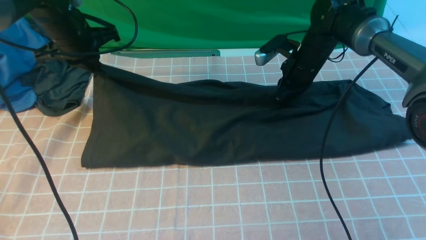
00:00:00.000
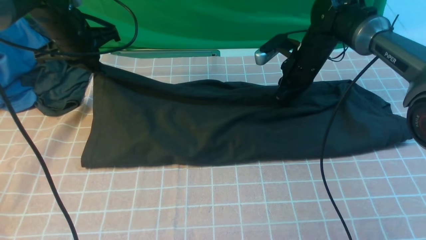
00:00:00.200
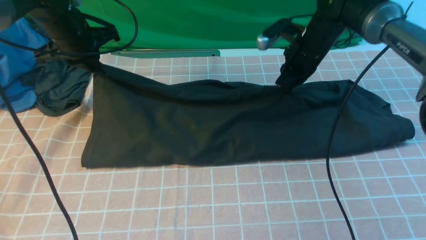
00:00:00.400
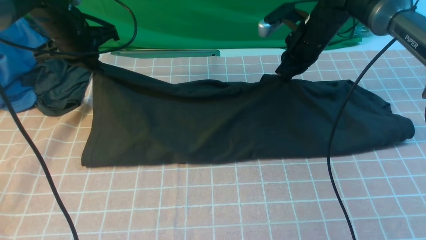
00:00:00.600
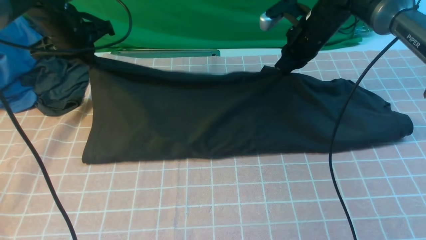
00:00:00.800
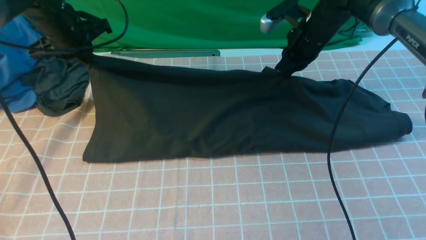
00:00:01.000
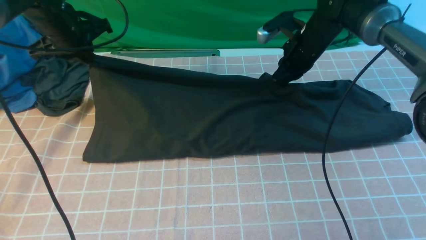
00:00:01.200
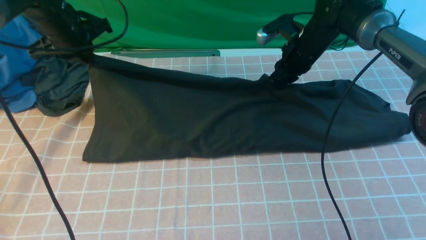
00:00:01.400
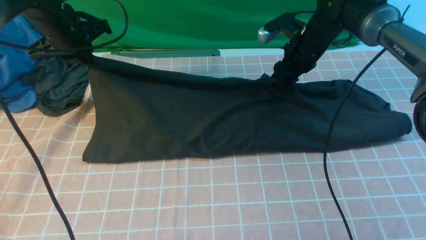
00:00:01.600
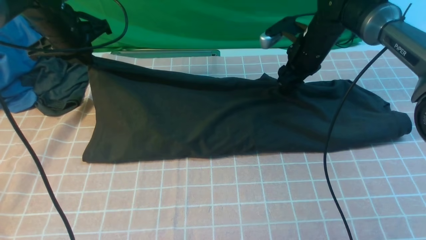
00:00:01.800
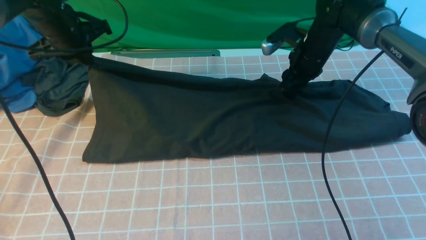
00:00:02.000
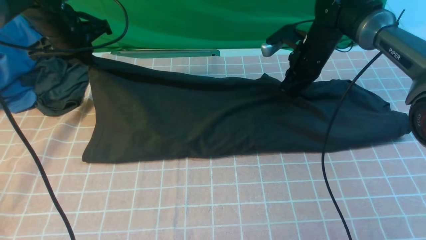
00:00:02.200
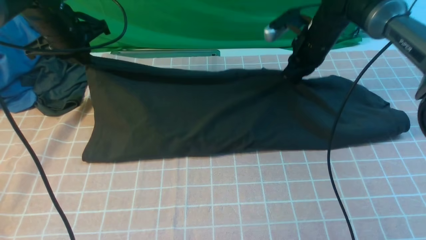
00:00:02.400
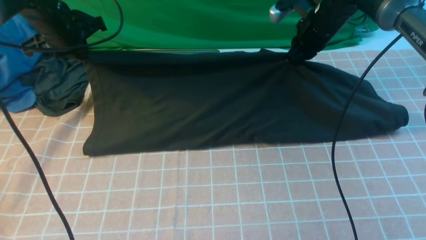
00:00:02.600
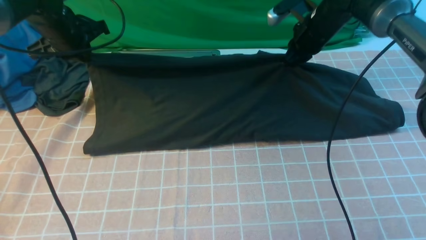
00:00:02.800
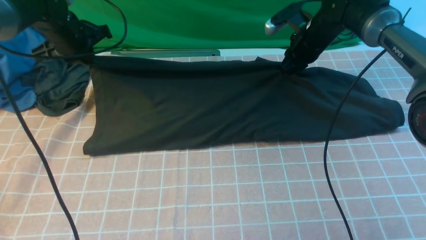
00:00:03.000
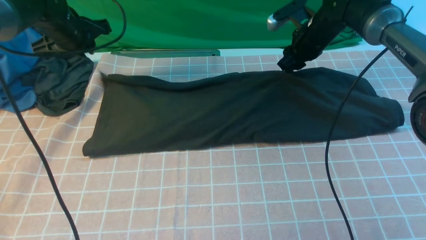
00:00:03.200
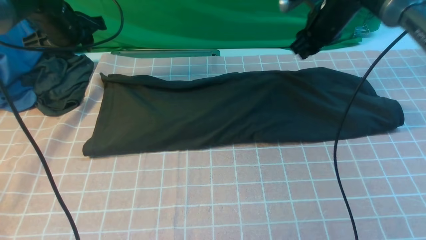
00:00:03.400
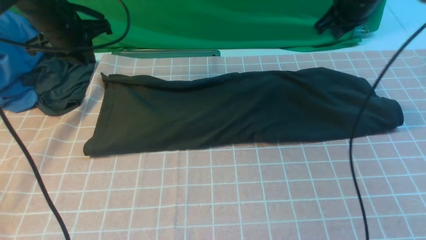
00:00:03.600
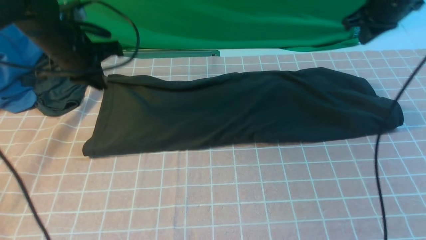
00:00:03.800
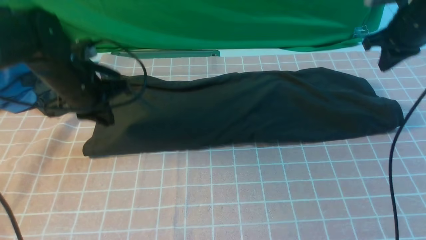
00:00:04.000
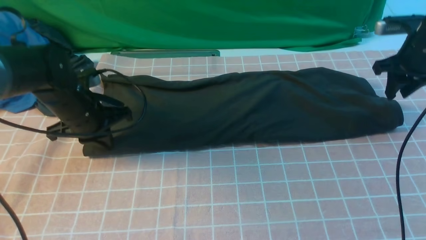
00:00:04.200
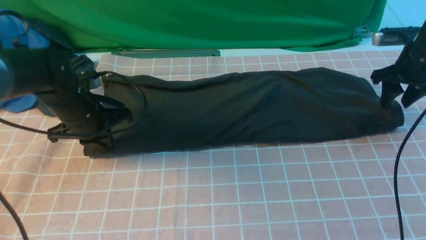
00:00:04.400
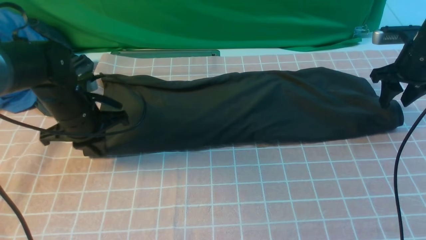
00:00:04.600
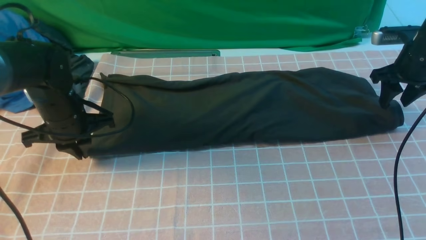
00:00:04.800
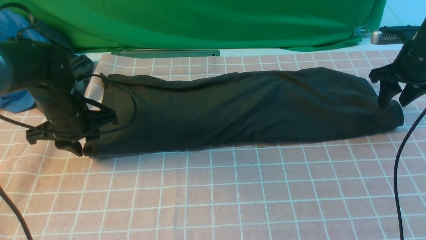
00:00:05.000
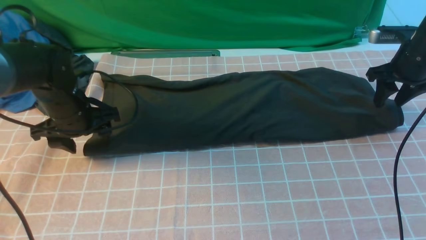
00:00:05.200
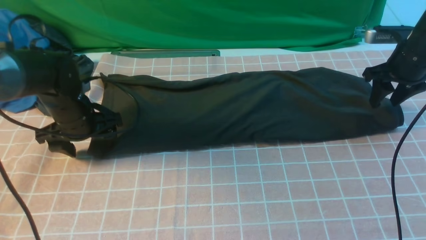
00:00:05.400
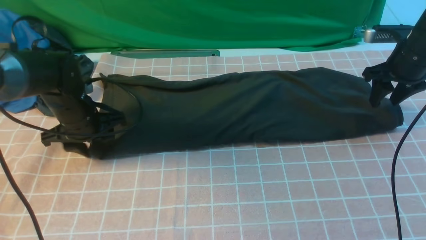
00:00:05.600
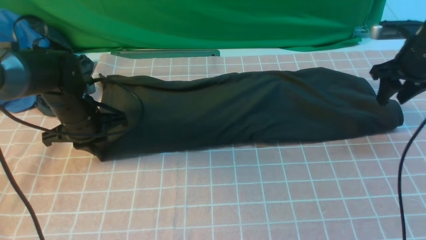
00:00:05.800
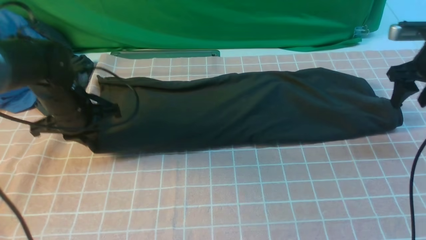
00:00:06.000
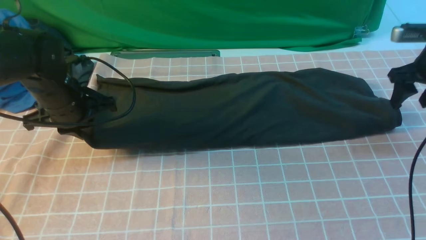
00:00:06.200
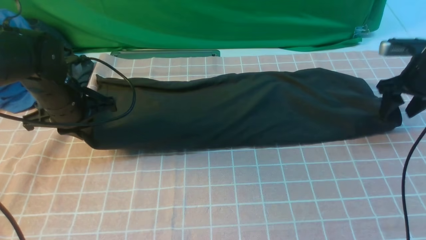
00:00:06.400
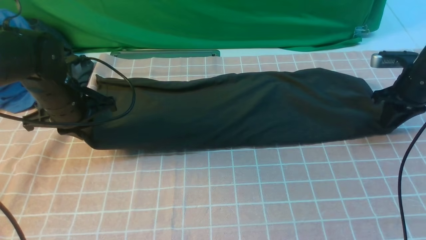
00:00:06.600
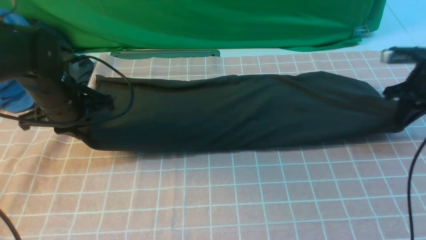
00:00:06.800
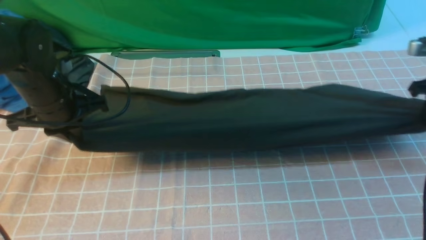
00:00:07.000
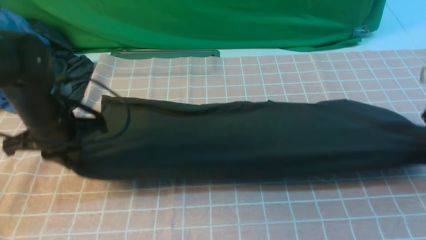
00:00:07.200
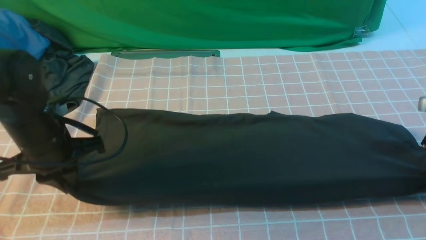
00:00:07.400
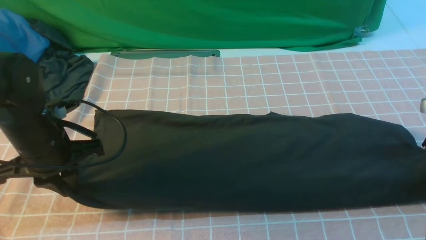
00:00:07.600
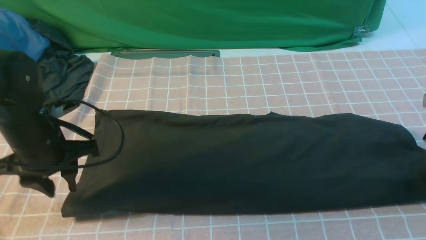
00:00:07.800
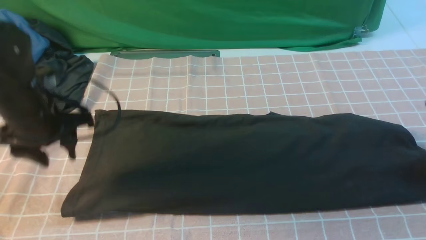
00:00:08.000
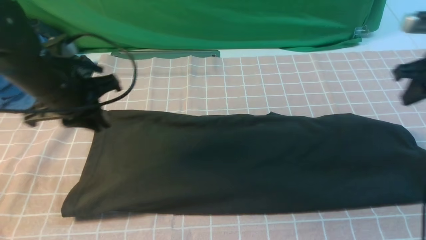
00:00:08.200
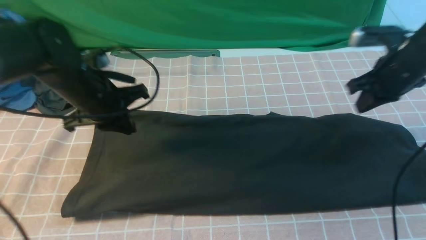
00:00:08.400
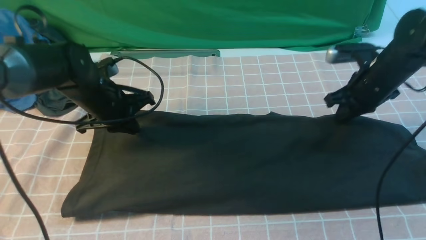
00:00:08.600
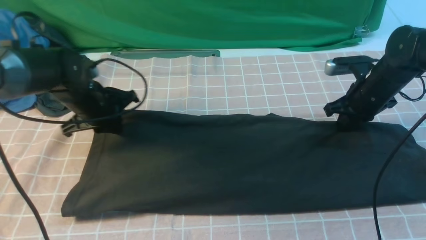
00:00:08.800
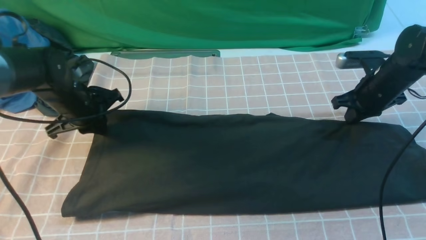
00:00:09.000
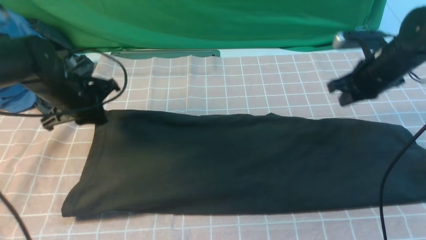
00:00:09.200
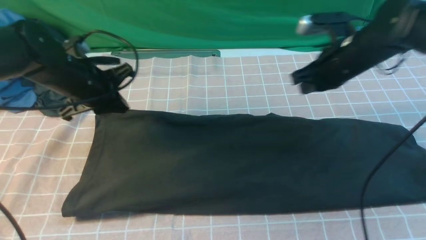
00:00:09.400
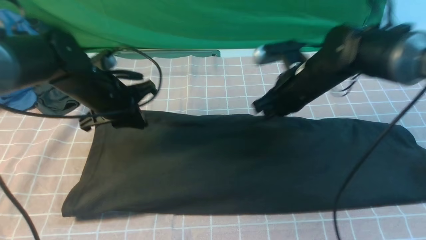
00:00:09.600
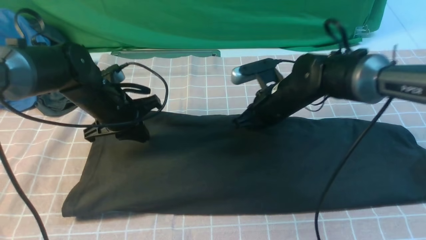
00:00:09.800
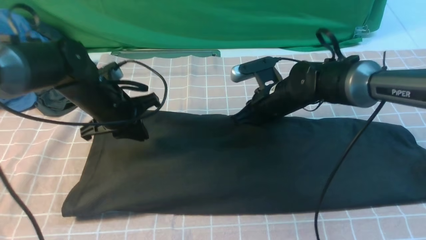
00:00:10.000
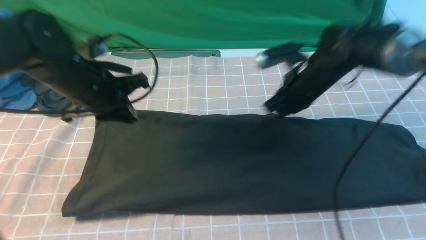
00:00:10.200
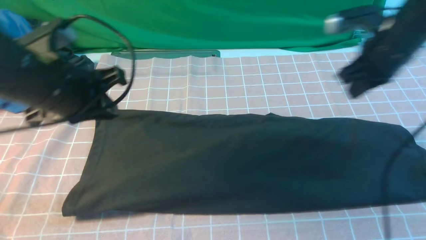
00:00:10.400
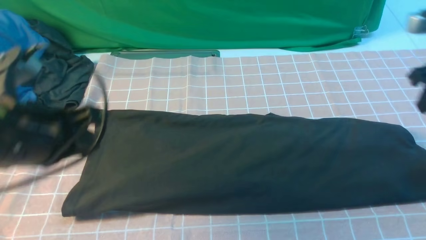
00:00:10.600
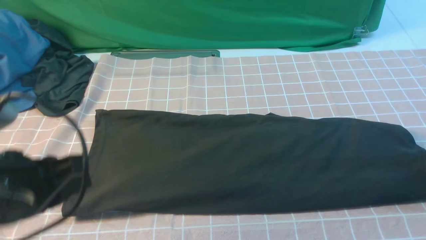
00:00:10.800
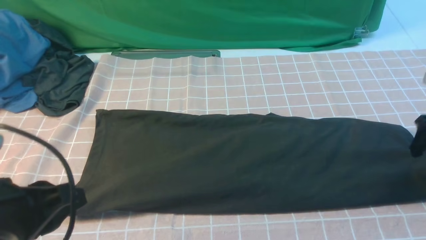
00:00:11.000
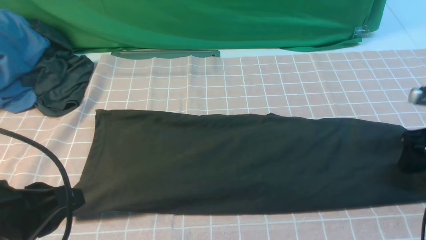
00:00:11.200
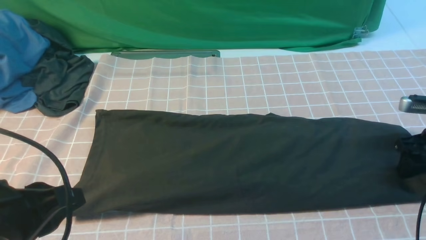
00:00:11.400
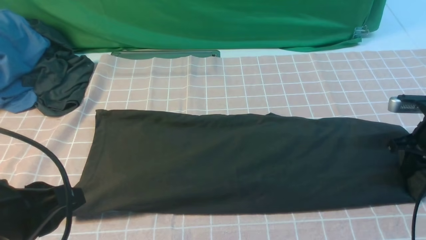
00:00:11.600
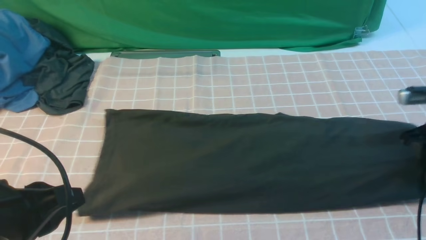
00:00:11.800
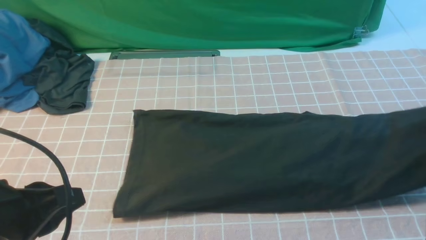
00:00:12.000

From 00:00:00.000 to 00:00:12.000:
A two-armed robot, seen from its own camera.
Step, from 00:00:00.000 to 00:00:03.200: use both arms to drag the lower edge of the fabric forward and fold it over the upper edge.
Step, from 00:00:03.400 to 00:00:11.400: use the right arm to clamp the right edge of the fabric.
From 00:00:00.000 to 00:00:01.600: The right gripper opens its fingers.
From 00:00:01.600 to 00:00:03.000: The right gripper closes its fingers.
From 00:00:03.000 to 00:00:04.400: The right gripper heads to the right and backward, covering about 20 cm, and opens its fingers; the left gripper travels backward and downward by roughly 15 cm.
From 00:00:04.400 to 00:00:06.000: The left gripper opens and closes again.
From 00:00:06.000 to 00:00:07.600: The right gripper is displaced backward and downward by about 10 cm, and closes its fingers. Meanwhile the left gripper goes approximately 10 cm backward.
From 00:00:07.600 to 00:00:09.000: The right gripper goes roughly 15 cm to the left and forward, and closes its fingers; the left gripper heads forward, covering roughly 10 cm.
From 00:00:09.000 to 00:00:10.400: The left gripper heads backward and upward, covering approximately 15 cm; the right gripper shifts roughly 10 cm upward, and travels to the left and back again, some 15 cm each way.
From 00:00:10.400 to 00:00:12.000: The right gripper shifts about 10 cm to the right, moves roughly 10 cm downward and comes back, and opens, then closes again. Meanwhile the left gripper heads backward, covering approximately 15 cm.

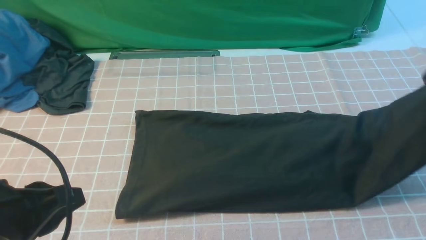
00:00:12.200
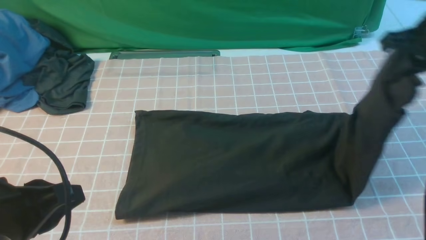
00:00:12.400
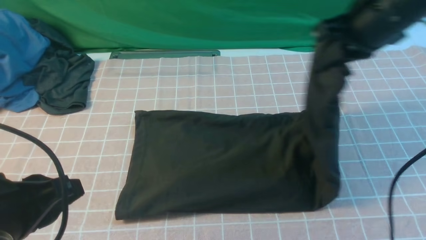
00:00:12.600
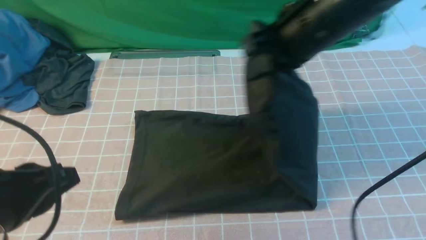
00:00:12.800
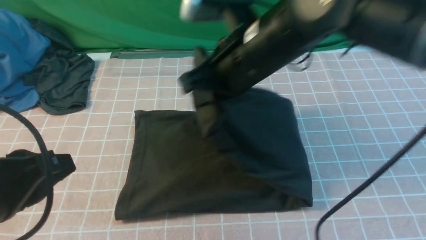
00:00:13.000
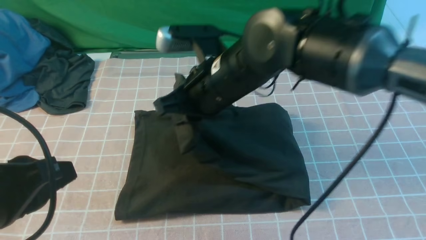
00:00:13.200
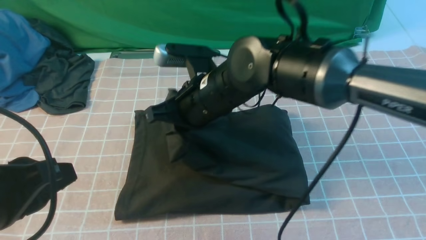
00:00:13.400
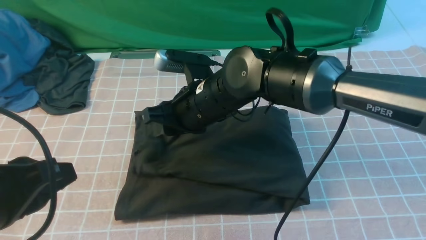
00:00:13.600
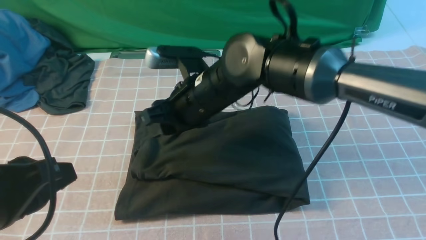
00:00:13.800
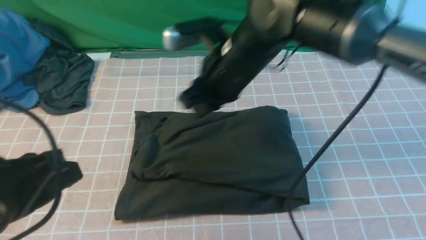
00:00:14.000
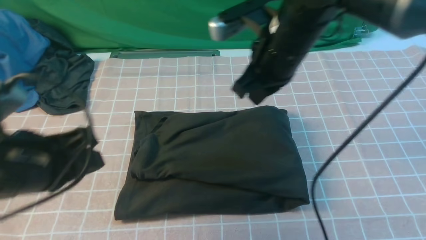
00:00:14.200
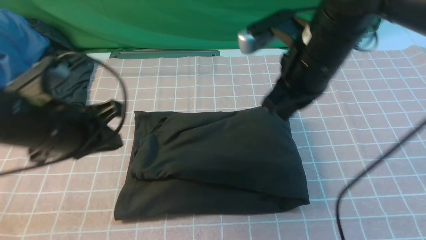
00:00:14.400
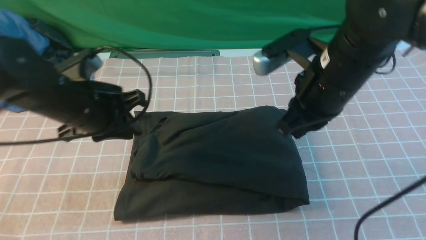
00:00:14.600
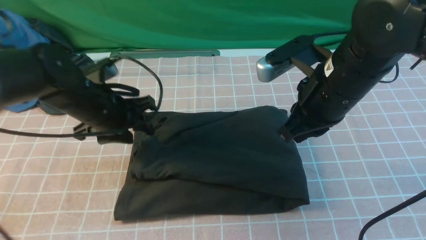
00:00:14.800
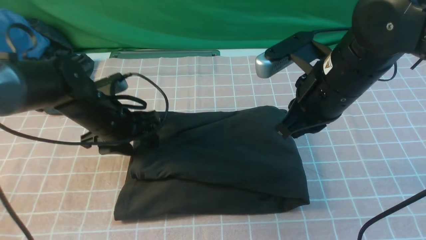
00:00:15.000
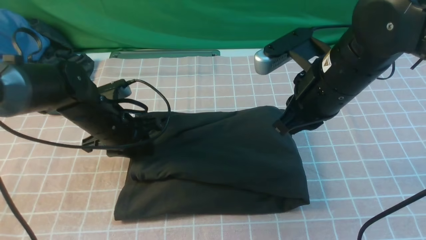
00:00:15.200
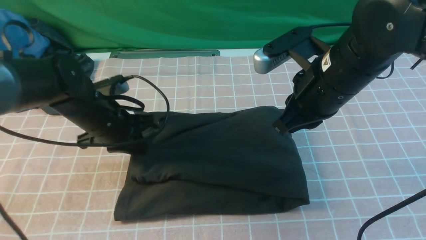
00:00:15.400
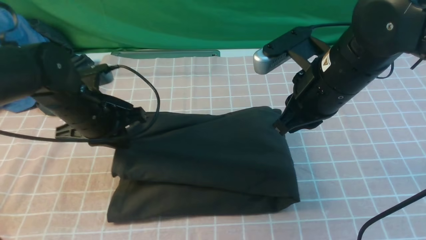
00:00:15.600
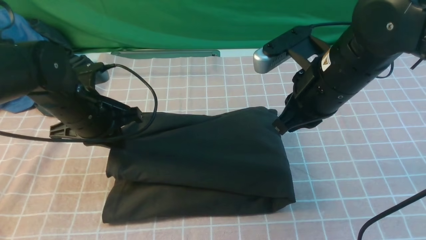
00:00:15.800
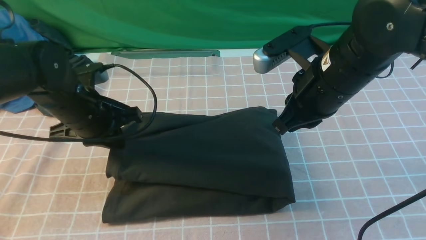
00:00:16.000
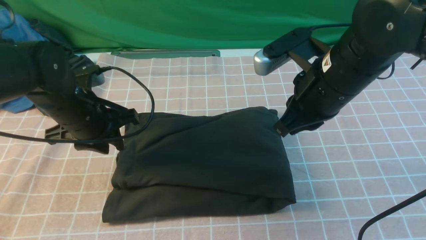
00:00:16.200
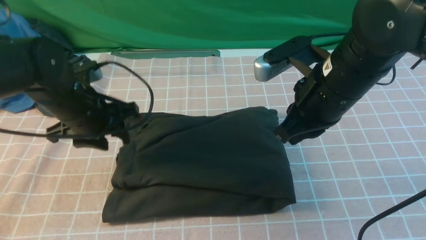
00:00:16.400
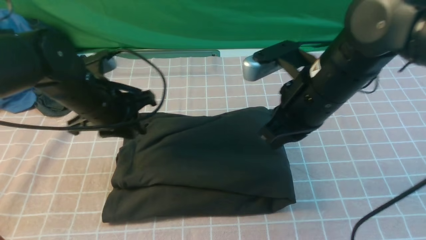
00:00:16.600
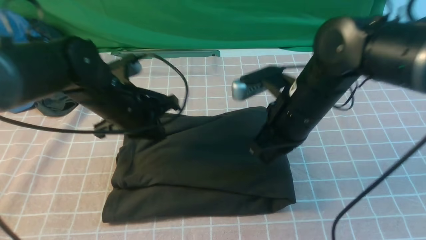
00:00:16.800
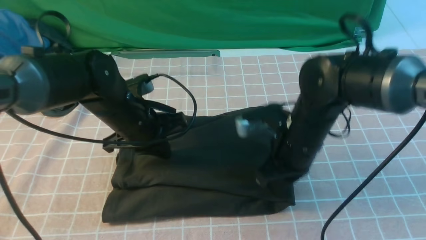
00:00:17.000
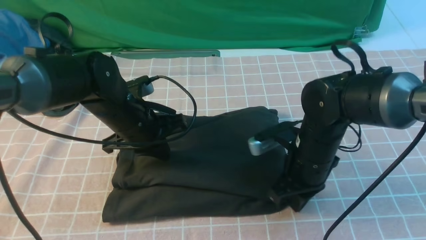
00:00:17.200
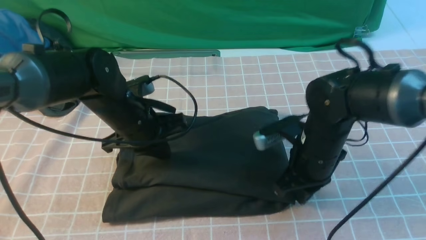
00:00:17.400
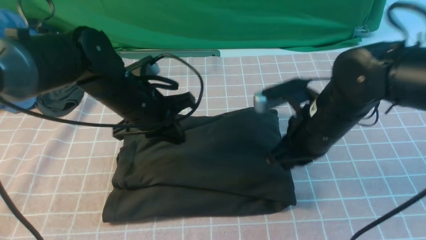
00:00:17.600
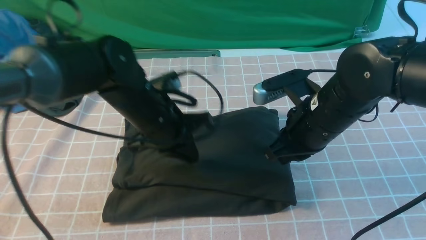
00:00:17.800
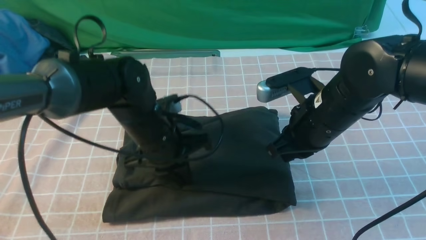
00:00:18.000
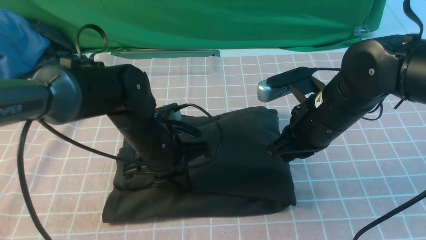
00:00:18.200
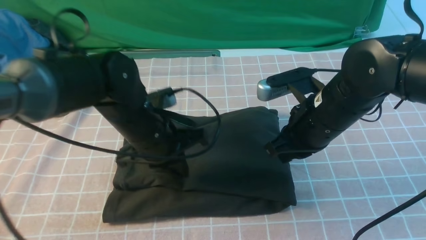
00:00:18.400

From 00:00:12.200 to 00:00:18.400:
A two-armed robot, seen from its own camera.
Step, from 00:00:12.200 to 00:00:13.600: use the right arm to drag the right edge of the fabric to the left and folds it over the left edge.
From 00:00:12.200 to 00:00:13.800: The right gripper is displaced to the left by approximately 35 cm, and opens its fingers.
From 00:00:13.800 to 00:00:15.400: The left gripper moves forward and downward, about 25 cm, and opens, then closes once more, while the right gripper moves to the right, roughly 15 cm, and closes up.
From 00:00:15.400 to 00:00:16.800: The left gripper opens and closes again. The right gripper shifts about 5 cm downward.
From 00:00:16.800 to 00:00:18.400: The left gripper shifts by approximately 5 cm.
